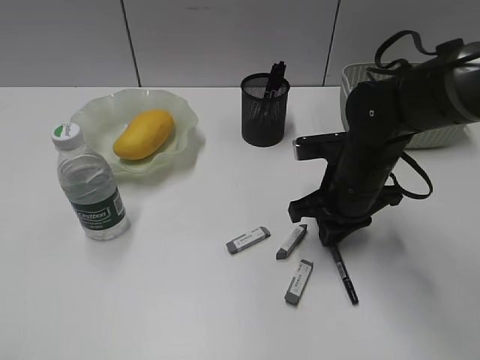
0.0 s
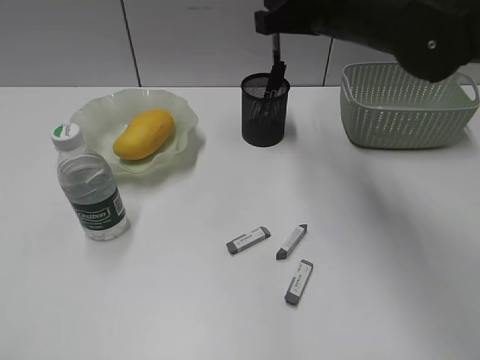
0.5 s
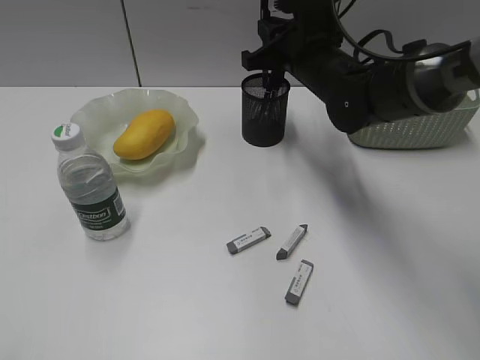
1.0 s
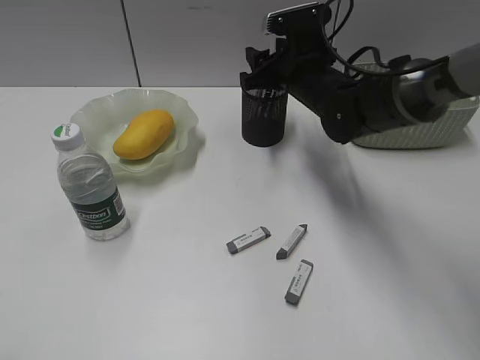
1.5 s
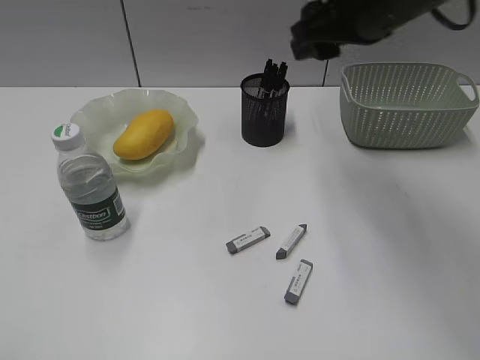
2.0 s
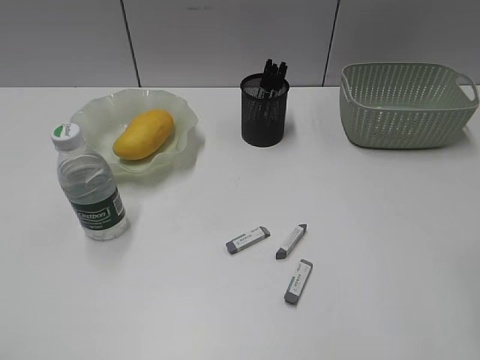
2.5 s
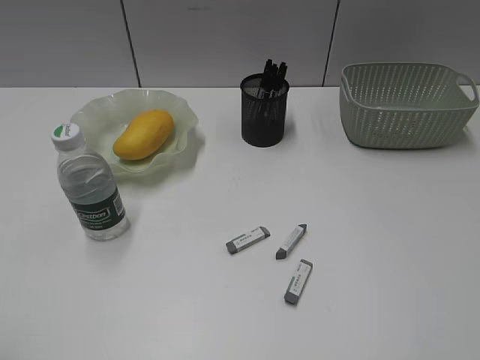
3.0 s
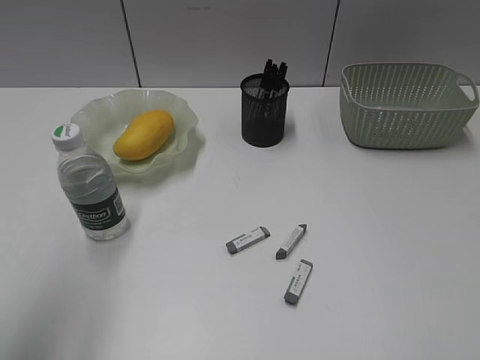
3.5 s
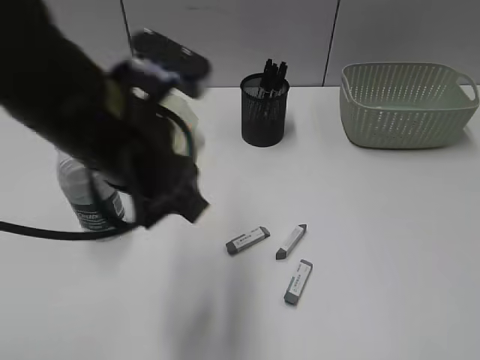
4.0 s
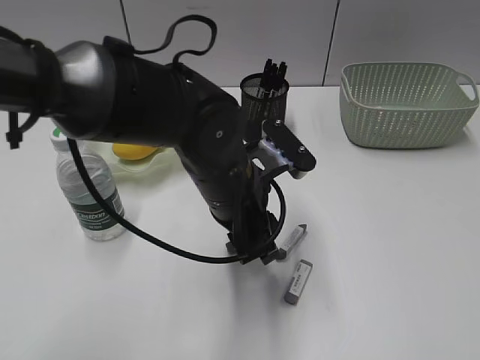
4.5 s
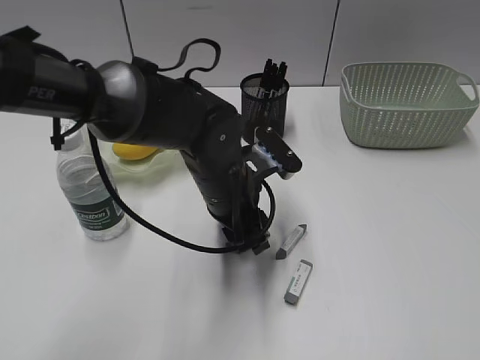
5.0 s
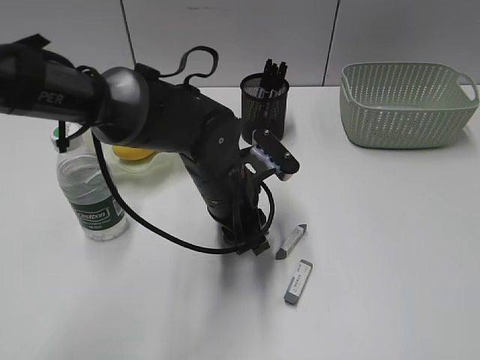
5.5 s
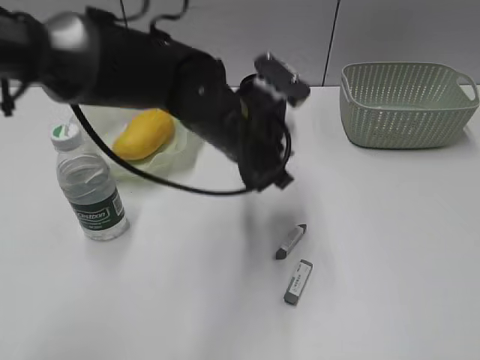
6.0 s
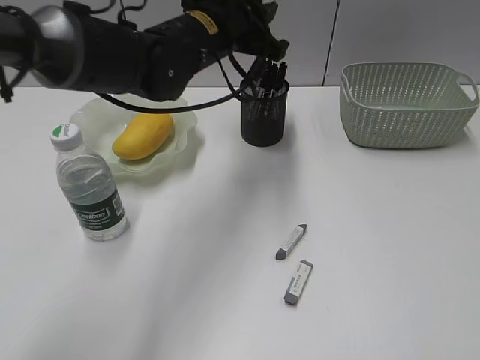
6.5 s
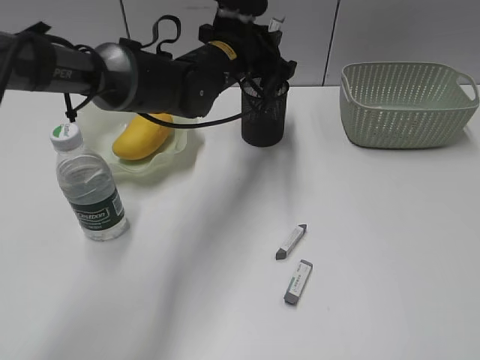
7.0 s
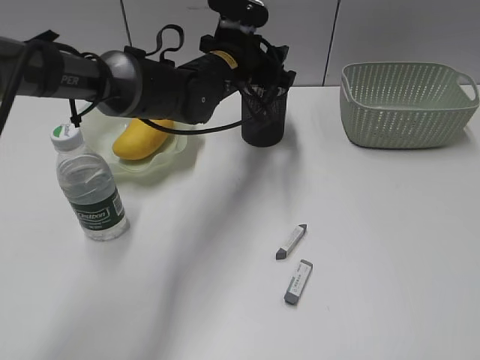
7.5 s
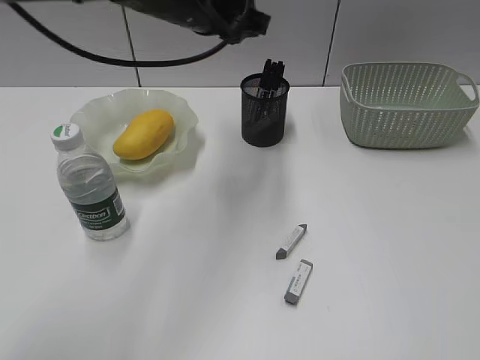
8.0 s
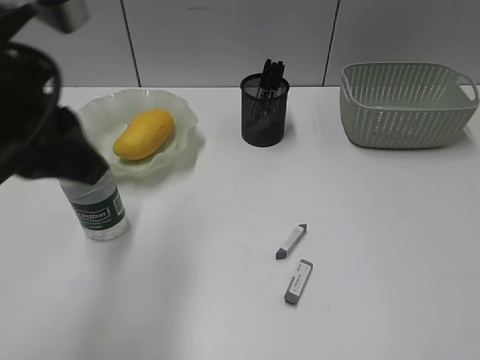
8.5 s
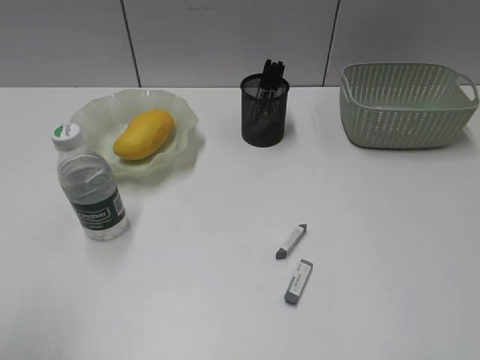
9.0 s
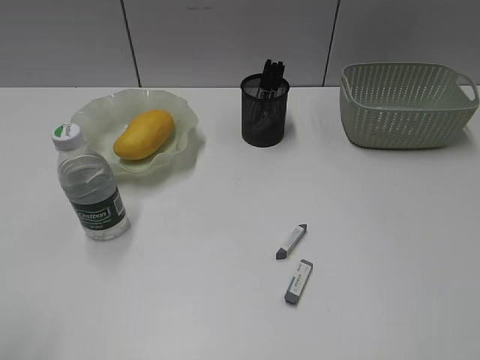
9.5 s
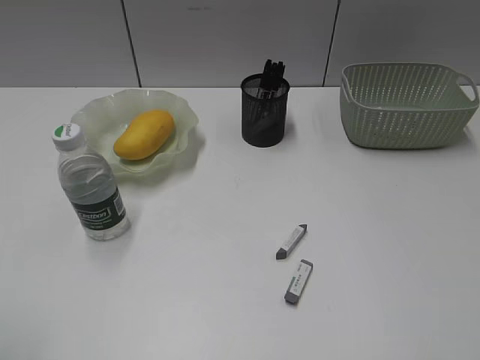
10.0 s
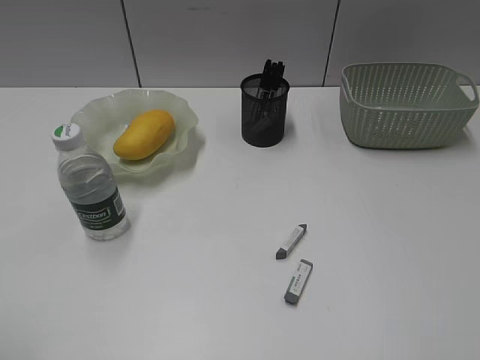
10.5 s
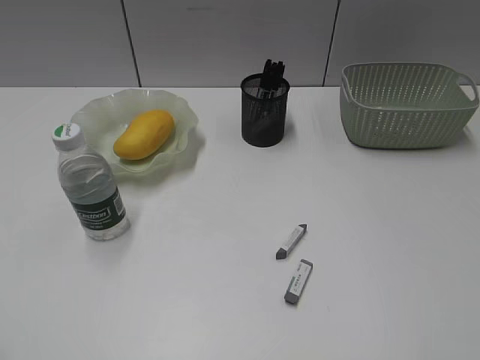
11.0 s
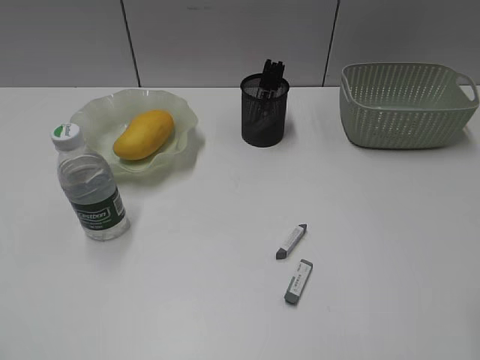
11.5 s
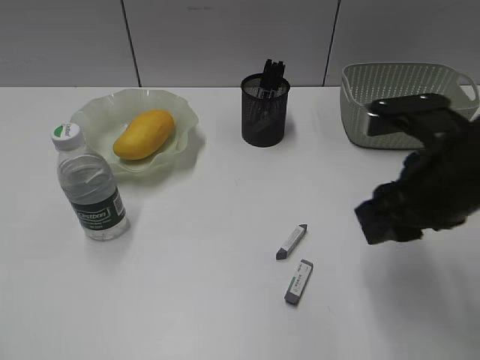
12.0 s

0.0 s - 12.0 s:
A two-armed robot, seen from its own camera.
Step, 0.5 s - 1.5 s: Place the black pen in pen holder with right gripper.
Step, 2.0 s - 5.5 s: Grasp the eraser with left gripper.
Step, 6.0 s - 7.5 s: Place the eraser in pen holder with left gripper.
0.0 s - 2.0 s: The right gripper moves up and down over some 20 cm, changing direction 2 times, and opens.
2.0 s - 4.0 s: The right gripper moves backward and to the right, about 40 cm, while the left gripper moves to the right and forward, approximately 30 cm.
4.0 s - 6.0 s: The left gripper is displaced forward, to the right and downward by roughly 15 cm.
6.0 s - 8.0 s: The left gripper travels upward, forward and to the left by roughly 15 cm.
8.0 s - 10.0 s: The left gripper heads backward and to the left, covering roughly 40 cm.
10.0 s - 12.0 s: The right gripper moves forward and to the left, about 25 cm.

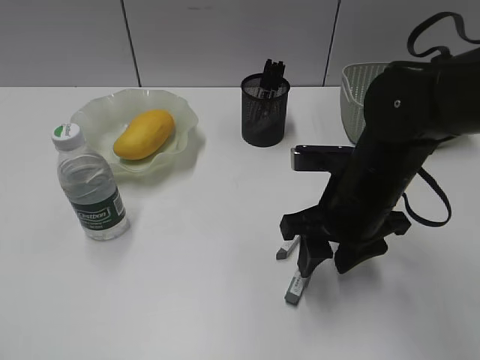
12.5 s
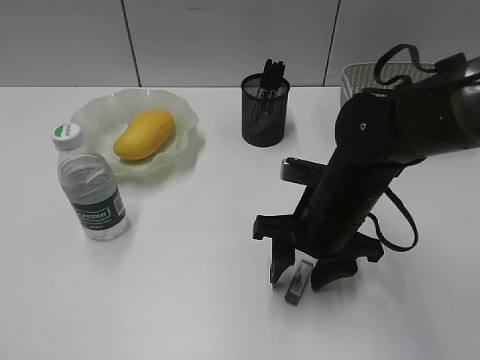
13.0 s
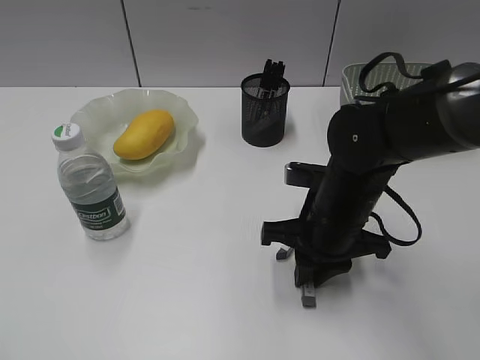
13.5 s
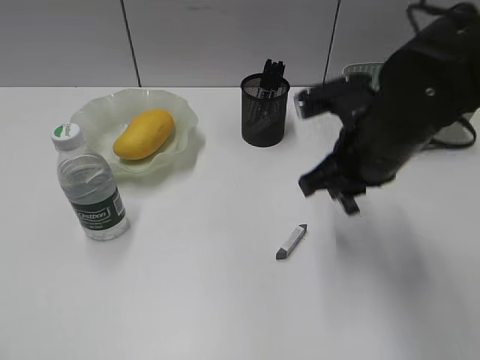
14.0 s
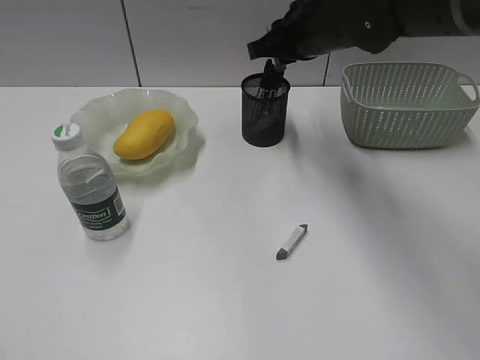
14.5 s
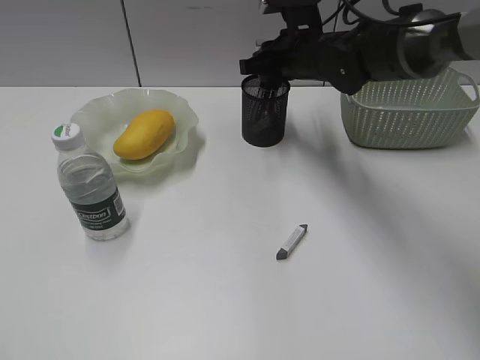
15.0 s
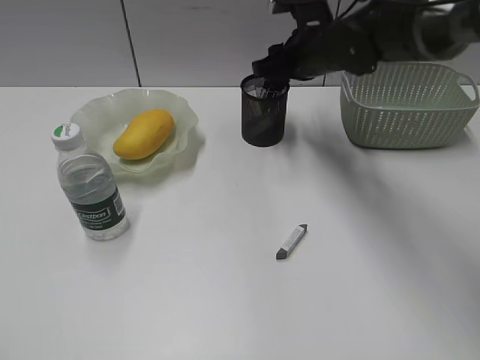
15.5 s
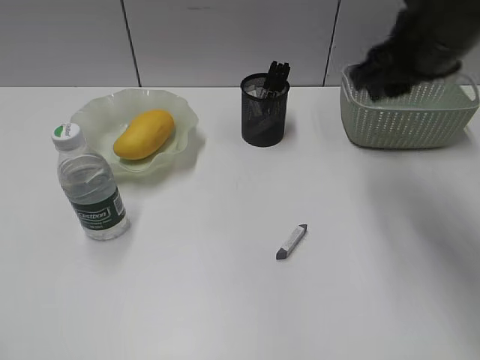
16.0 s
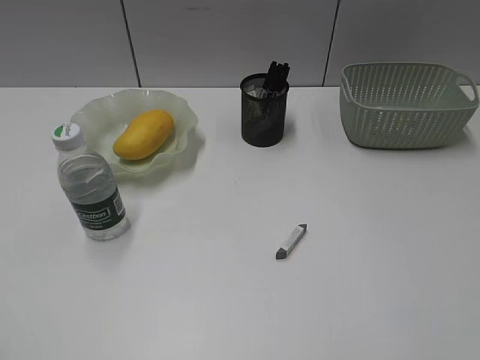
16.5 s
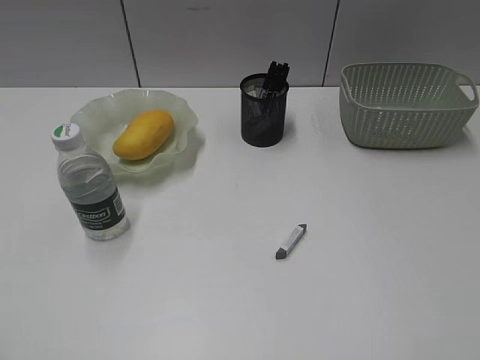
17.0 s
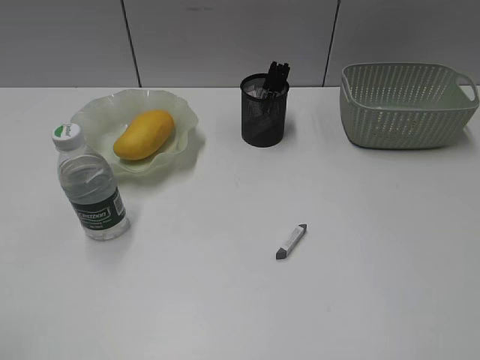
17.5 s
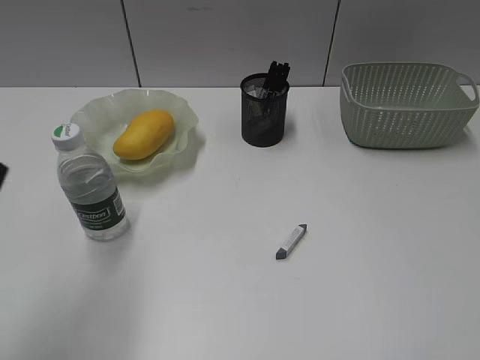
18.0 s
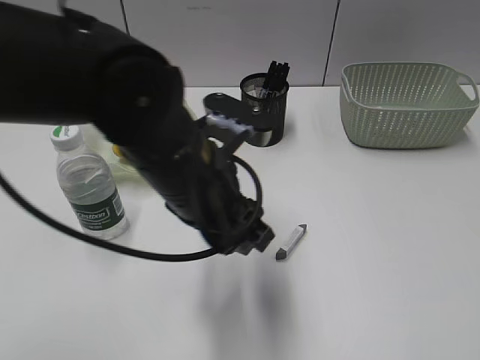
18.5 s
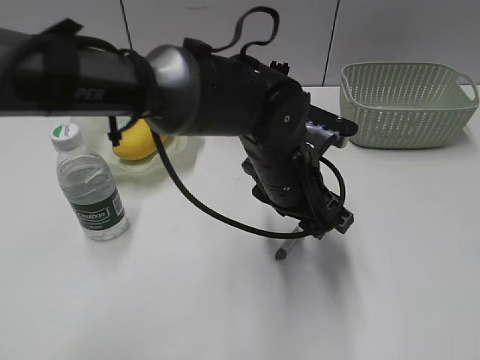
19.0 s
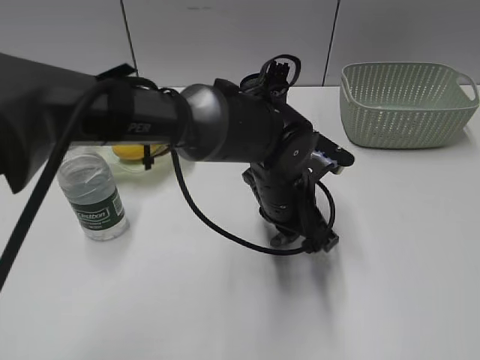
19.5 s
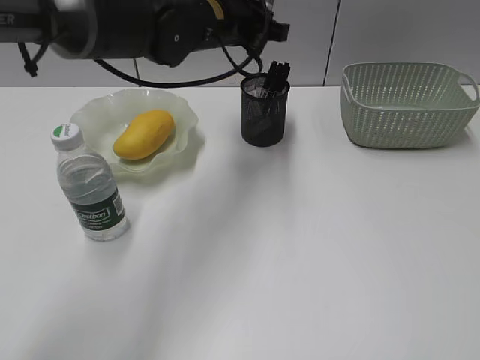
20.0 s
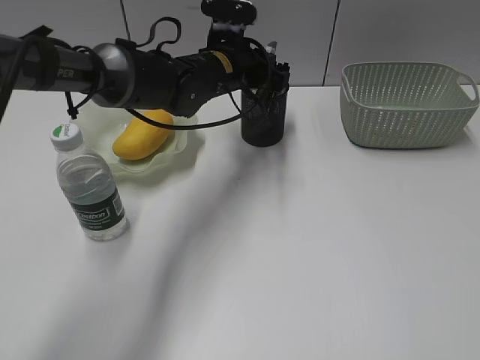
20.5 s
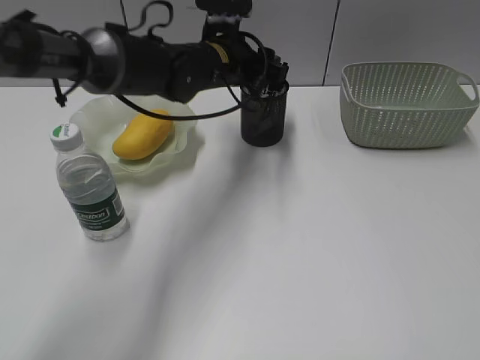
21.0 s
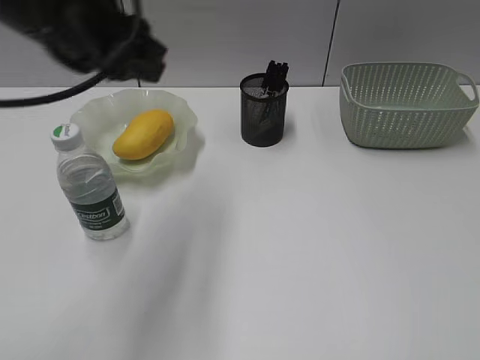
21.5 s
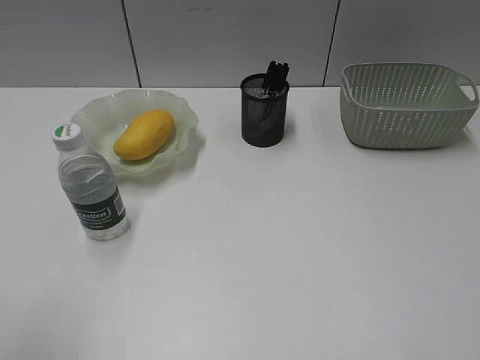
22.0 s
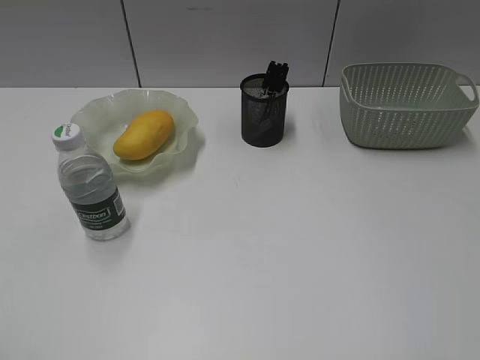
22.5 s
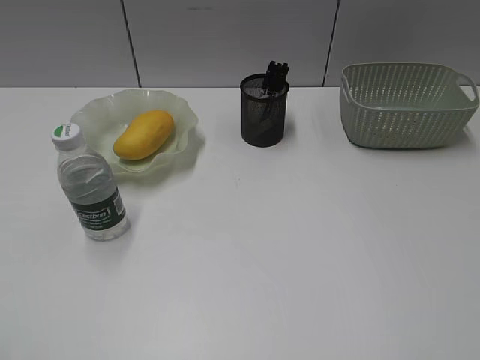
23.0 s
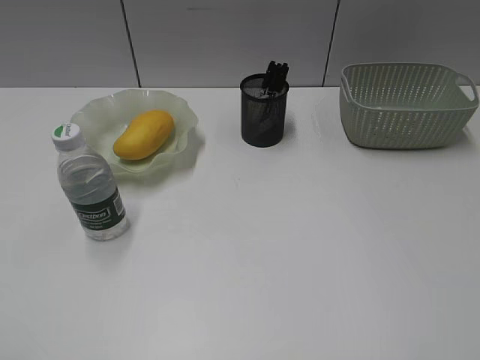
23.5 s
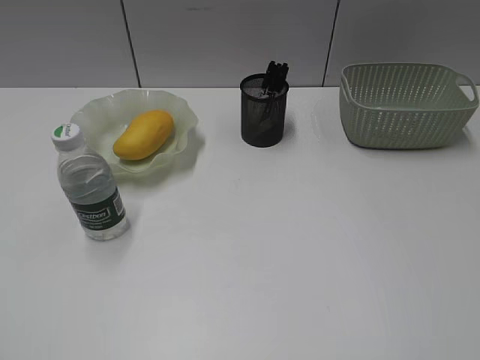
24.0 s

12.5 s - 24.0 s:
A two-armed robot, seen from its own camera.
Step, 14.0 s - 15.5 s: Place the eraser in pen holder with right gripper.
Step, 16.0 s - 19.5 s: Grasp the eraser with left gripper.
Step, 20.0 s - 21.0 s: Place the eraser in pen holder with left gripper.
12.5 s - 14.5 s: The right gripper heads forward and upward, covering about 20 cm, and closes.
14.5 s - 16.5 s: The right gripper travels backward and to the right by approximately 35 cm, and opens.
16.5 s - 18.5 s: The left gripper shifts about 40 cm to the right and forward, and opens its fingers. Meanwhile the right gripper is displaced backward by approximately 10 cm.
18.5 s - 20.0 s: The left gripper heads forward, covering about 20 cm, and closes.
20.0 s - 22.0 s: The left gripper moves backward and to the left, approximately 50 cm.

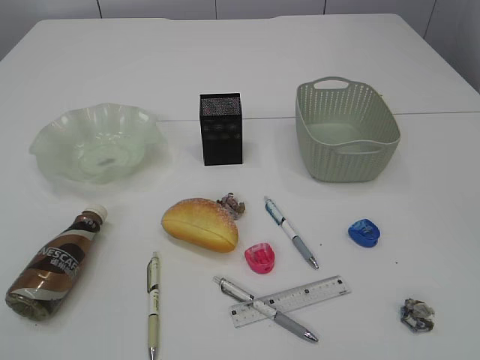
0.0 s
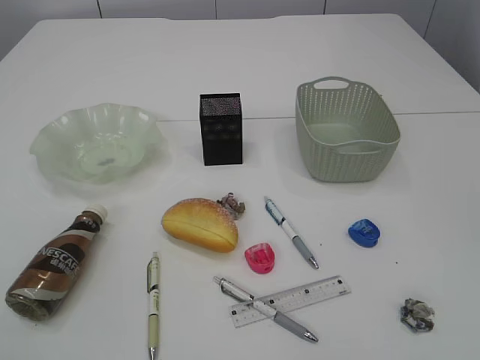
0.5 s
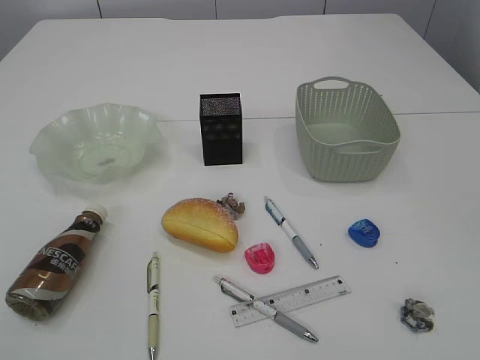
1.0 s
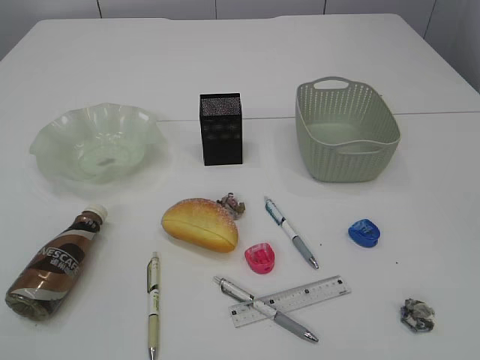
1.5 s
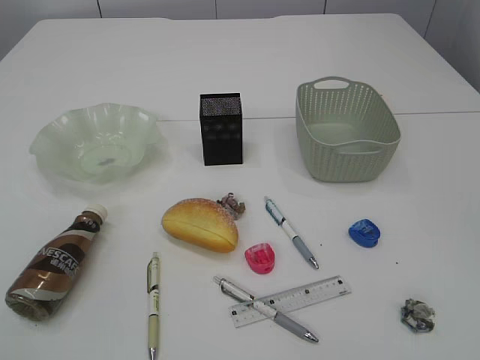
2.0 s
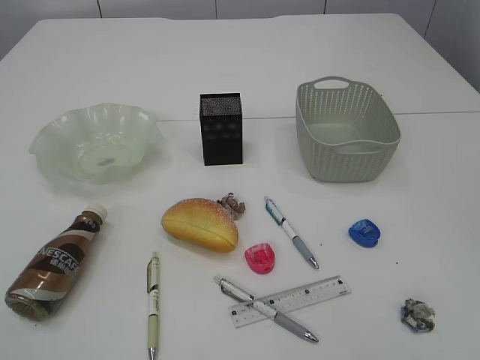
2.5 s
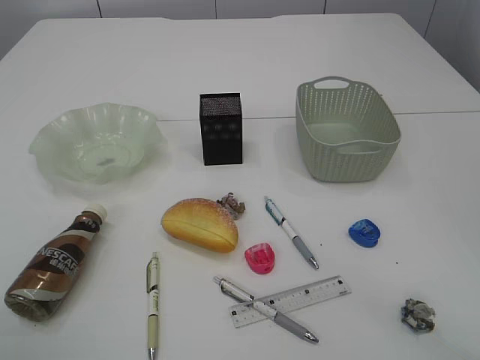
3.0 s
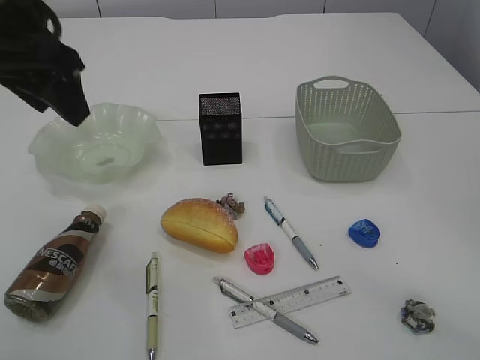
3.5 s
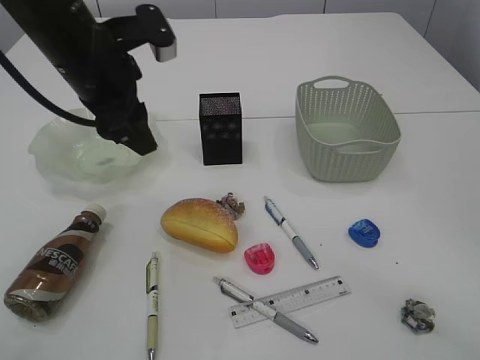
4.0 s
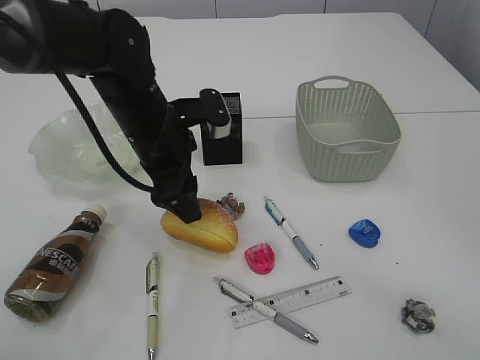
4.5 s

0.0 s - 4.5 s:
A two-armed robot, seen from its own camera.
2.0 s - 4.5 s: The left gripper heads forward and to the right, covering roughly 40 cm, and opens up, while the right gripper heads forward, covering approximately 15 cm.
